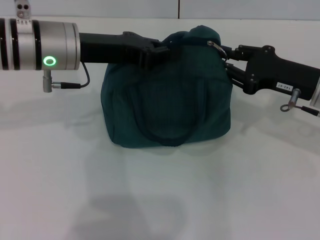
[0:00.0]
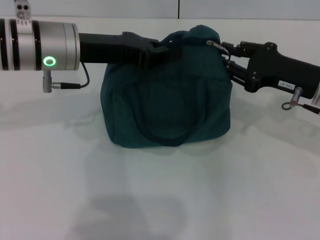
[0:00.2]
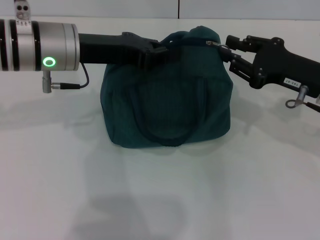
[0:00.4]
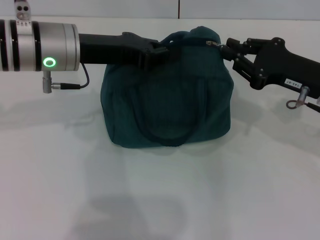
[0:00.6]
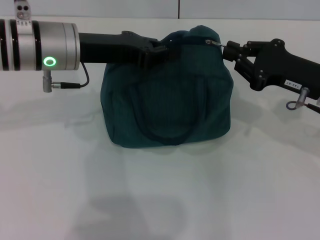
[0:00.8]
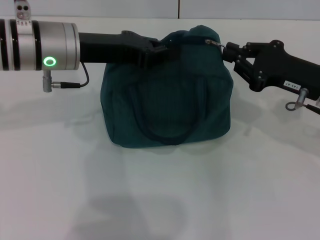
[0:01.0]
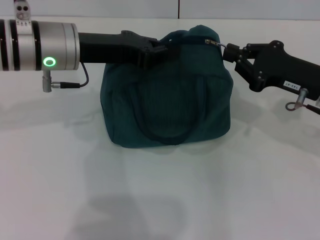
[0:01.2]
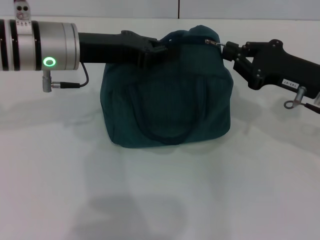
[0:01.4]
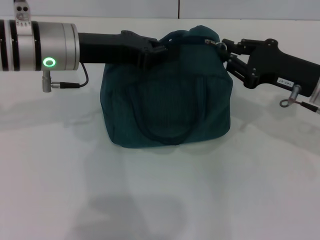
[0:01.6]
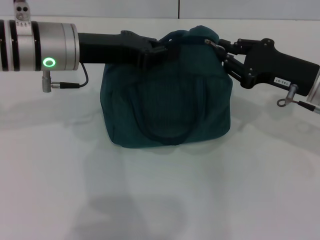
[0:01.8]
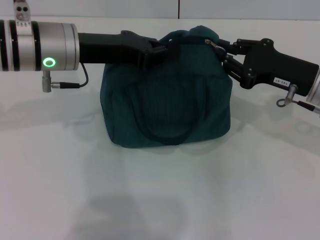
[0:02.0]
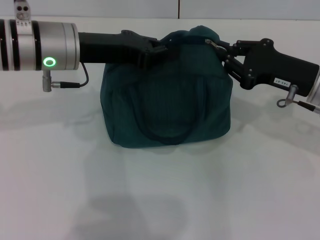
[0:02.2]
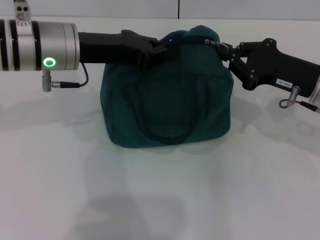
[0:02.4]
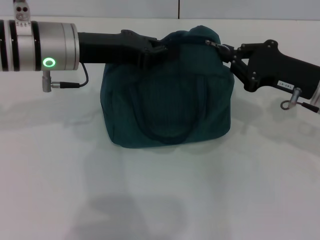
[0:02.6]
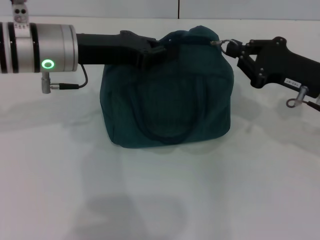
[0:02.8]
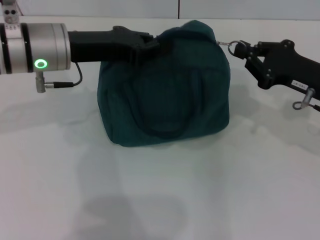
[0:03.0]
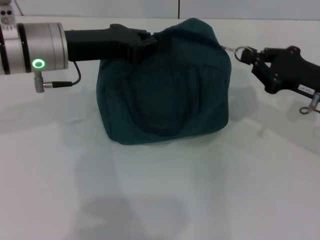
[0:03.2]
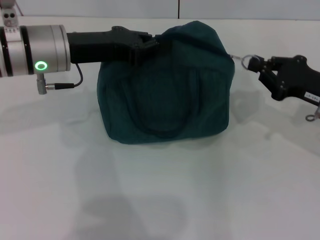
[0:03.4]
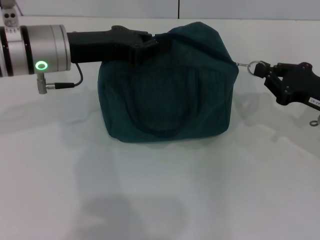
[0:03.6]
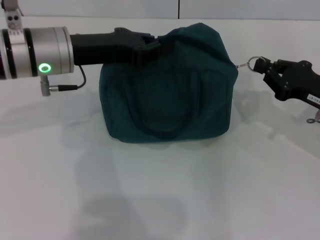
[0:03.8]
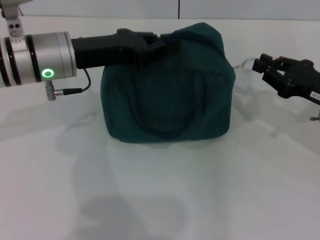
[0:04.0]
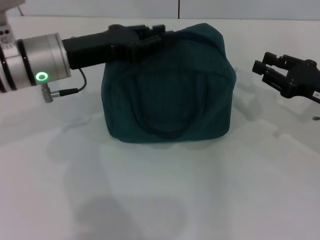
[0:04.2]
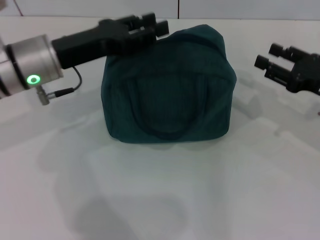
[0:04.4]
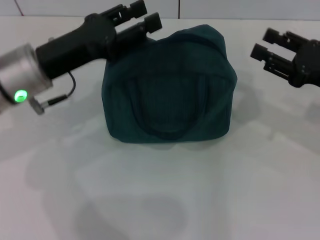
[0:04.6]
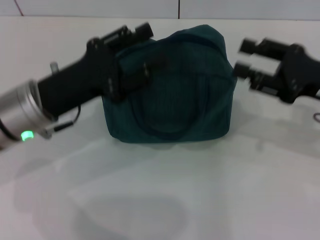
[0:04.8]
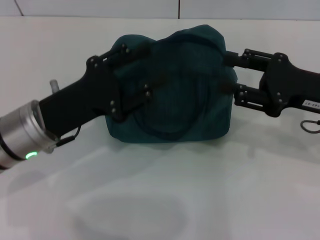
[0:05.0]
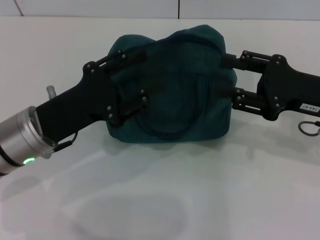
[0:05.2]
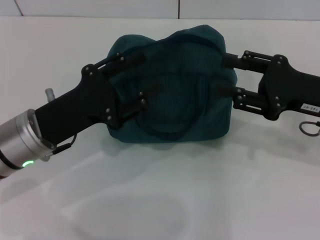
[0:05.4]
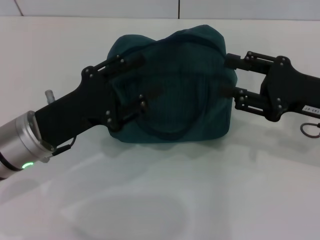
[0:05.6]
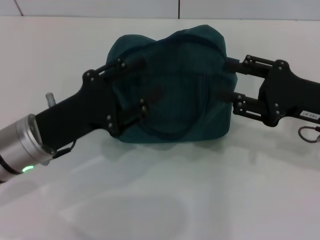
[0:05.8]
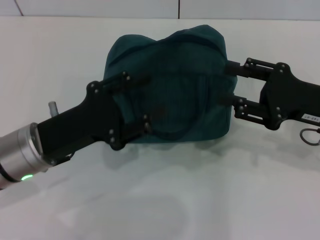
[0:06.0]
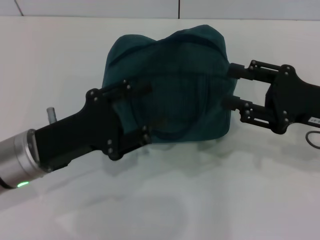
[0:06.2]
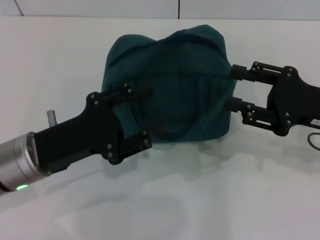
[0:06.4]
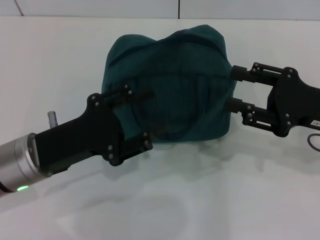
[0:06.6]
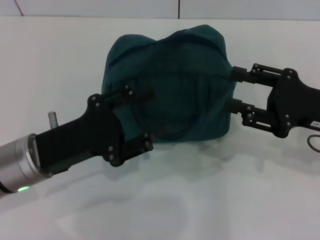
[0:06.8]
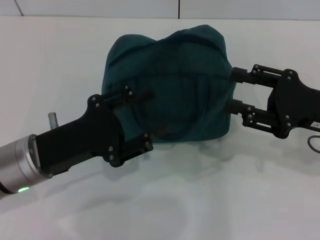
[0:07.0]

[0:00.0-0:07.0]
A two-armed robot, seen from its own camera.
Step, 0:00.0 to 0:04.0: Zip up the lunch bag with your right hand.
0:00.0 to 0:01.4: The grippers move only a little.
0:01.4 to 0:02.8: Neither gripper changes place.
0:02.8 to 0:04.2: The right gripper changes place by approximately 5 cm.
0:04.2 to 0:05.6: The left gripper heads backward and downward, covering approximately 10 cm, and opens; the right gripper changes place by some 5 cm, and opens its fingers.
0:05.6 to 0:07.0: There are only small adjustments of the grippers.

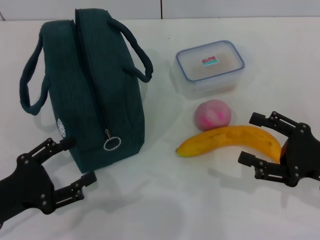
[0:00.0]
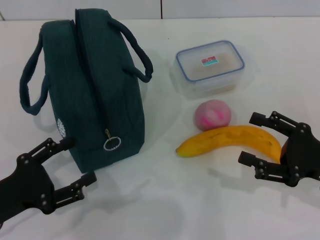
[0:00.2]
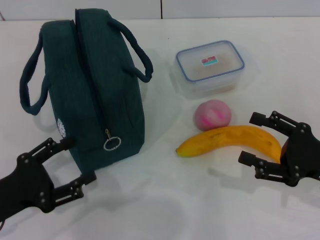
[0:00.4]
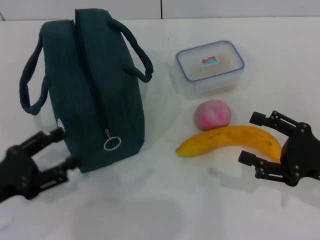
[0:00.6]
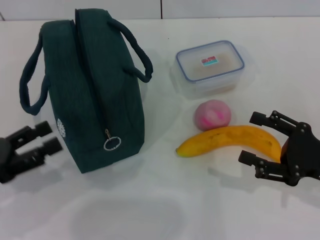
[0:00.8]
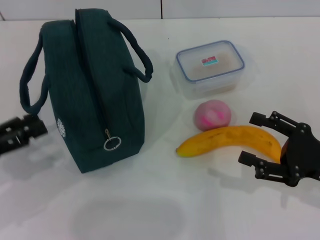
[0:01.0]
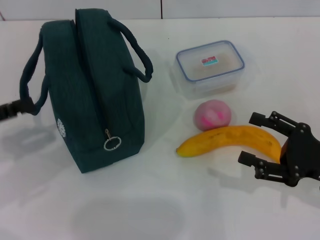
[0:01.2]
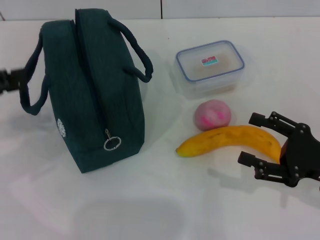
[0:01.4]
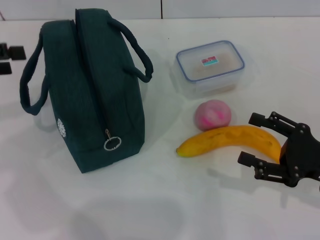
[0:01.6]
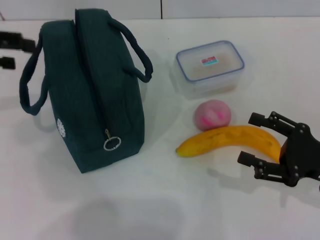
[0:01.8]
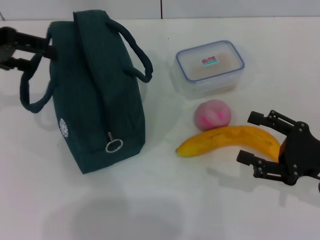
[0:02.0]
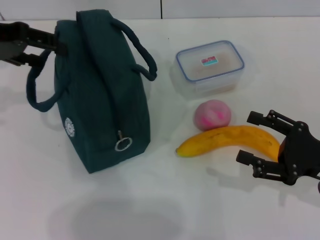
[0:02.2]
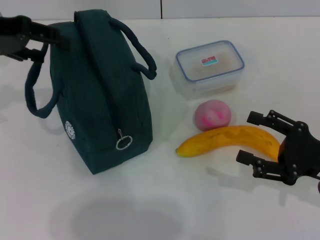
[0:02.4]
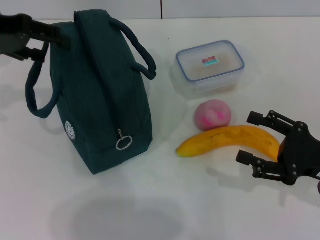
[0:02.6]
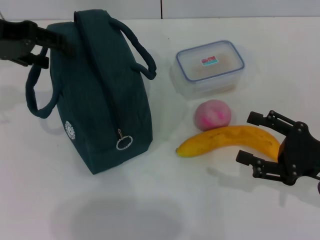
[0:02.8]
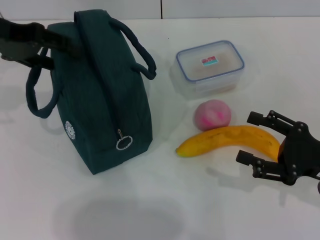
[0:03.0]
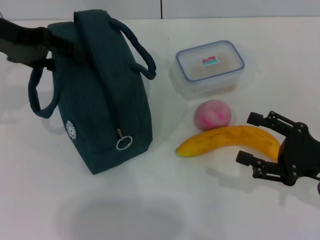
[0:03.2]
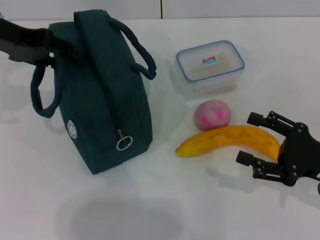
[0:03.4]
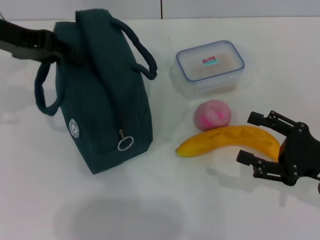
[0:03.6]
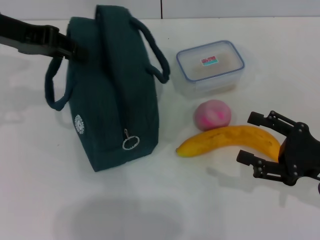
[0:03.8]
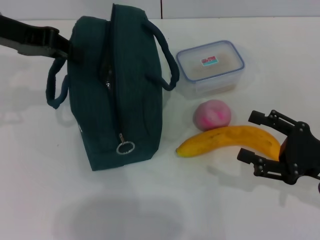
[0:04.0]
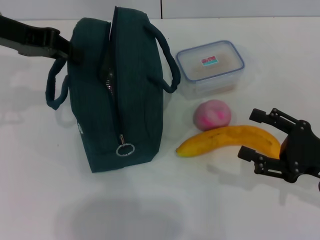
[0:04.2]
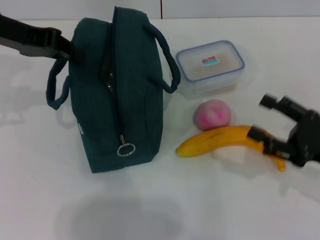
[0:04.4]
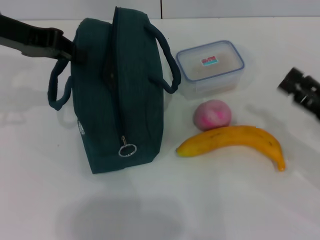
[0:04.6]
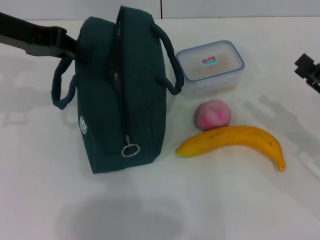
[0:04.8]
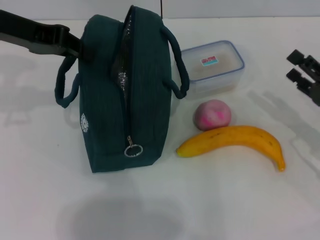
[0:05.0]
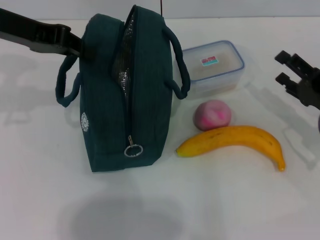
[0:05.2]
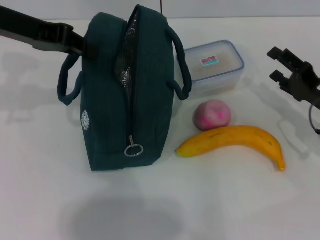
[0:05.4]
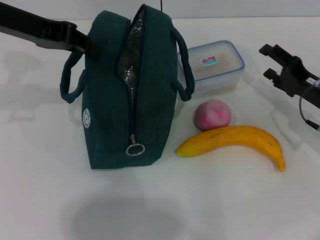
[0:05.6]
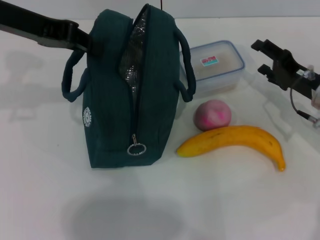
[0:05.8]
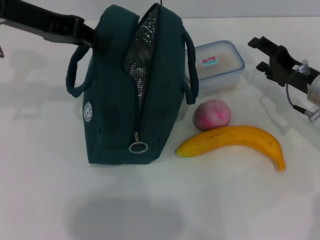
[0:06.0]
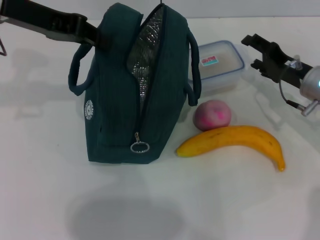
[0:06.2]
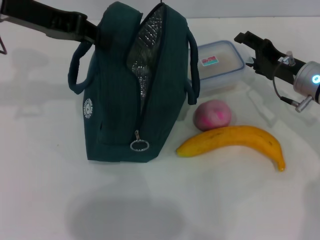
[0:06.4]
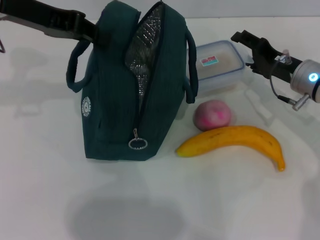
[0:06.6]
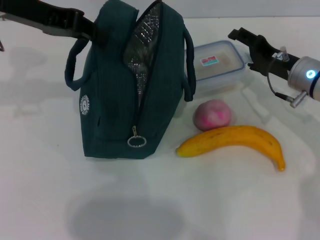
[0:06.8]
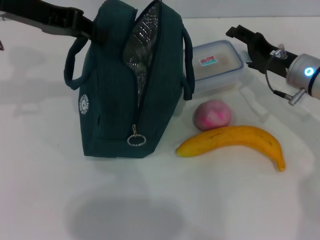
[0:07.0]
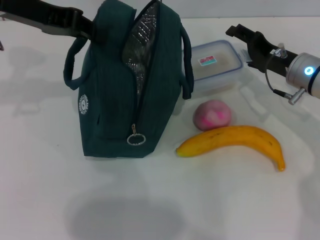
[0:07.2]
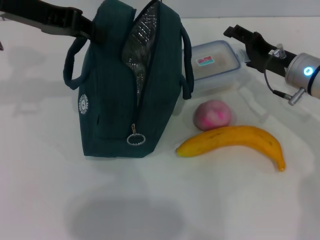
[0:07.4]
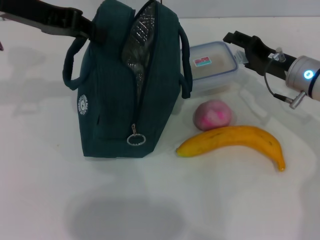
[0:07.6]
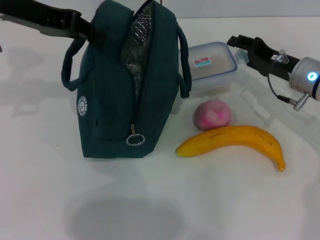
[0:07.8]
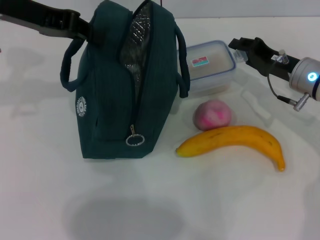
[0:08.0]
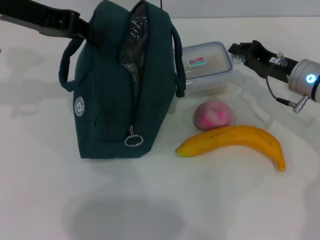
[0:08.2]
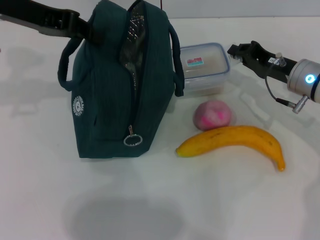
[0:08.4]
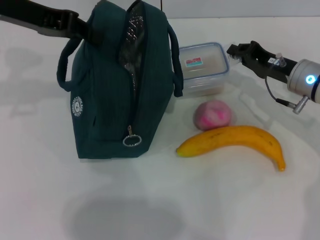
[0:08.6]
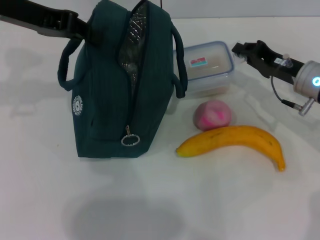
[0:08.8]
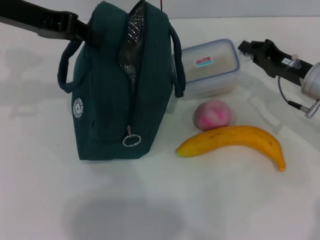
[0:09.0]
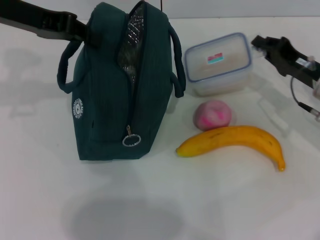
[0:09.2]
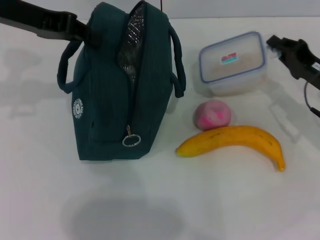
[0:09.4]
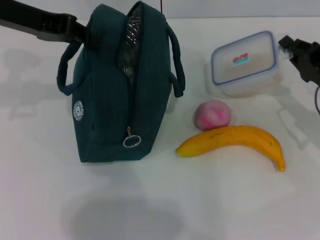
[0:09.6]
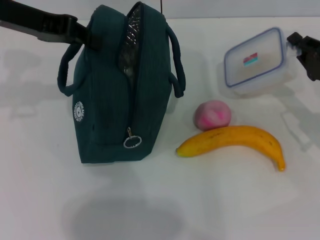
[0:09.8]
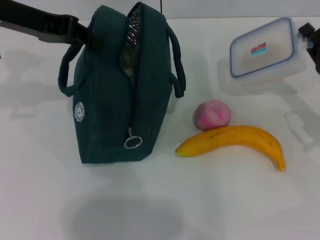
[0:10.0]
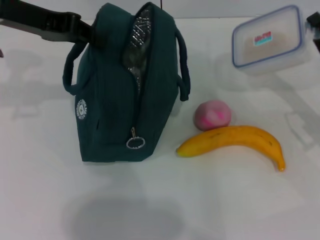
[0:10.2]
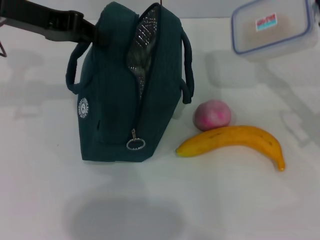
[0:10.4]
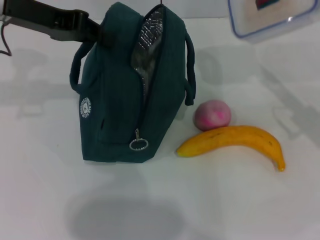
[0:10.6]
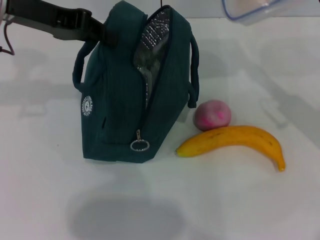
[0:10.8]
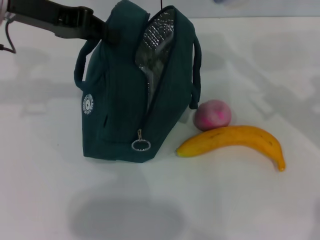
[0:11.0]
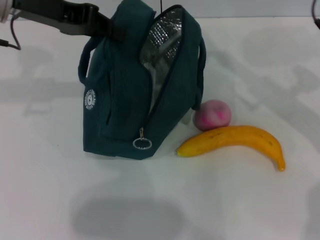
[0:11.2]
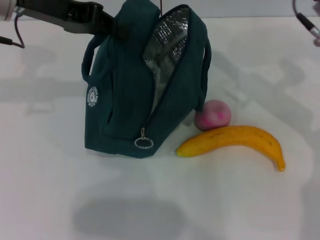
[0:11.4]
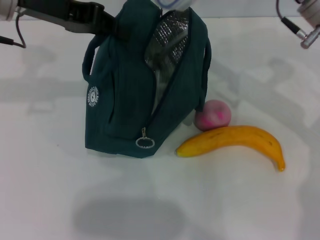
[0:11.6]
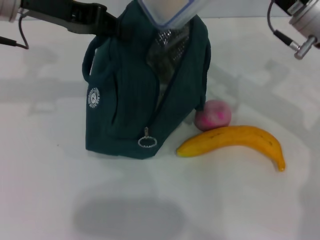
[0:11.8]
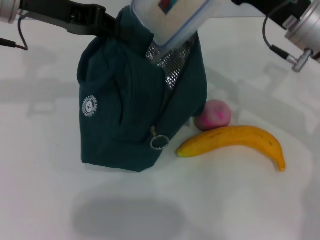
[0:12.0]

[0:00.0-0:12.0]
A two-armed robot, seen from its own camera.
Step, 0:00.0 to 0:04.0: Hold the lunch bag with your left hand.
Step, 0:04.2 to 0:08.8: Pick up the lunch box with your right hand.
0:00.0 to 0:01.6: The left gripper heads upward, forward and to the left, covering some 20 cm.
0:01.6 to 0:03.0: The left gripper is displaced to the right and forward by about 10 cm.
0:03.0 to 0:04.4: The left gripper closes its fingers.
0:04.4 to 0:06.0: The right gripper goes roughly 15 cm forward.
0:06.0 to 0:07.6: The grippers move only a little.
0:07.6 to 0:09.0: The right gripper closes its fingers.
0:09.0 to 0:10.4: The right gripper goes about 10 cm backward and to the right.
0:10.4 to 0:12.0: The right gripper shifts roughly 15 cm to the left, forward and upward.

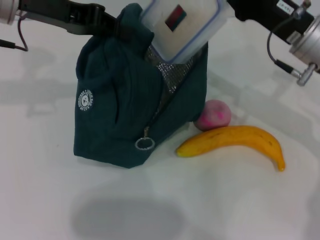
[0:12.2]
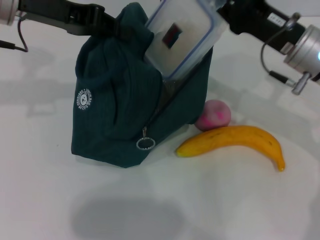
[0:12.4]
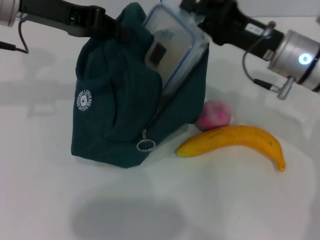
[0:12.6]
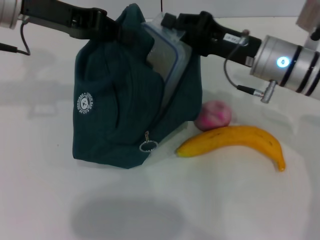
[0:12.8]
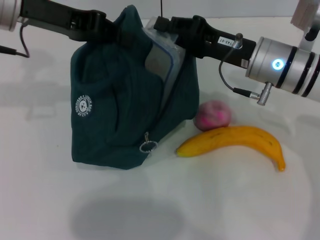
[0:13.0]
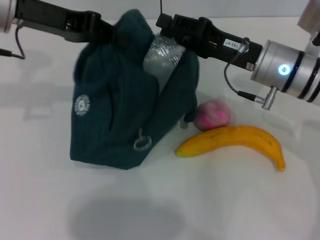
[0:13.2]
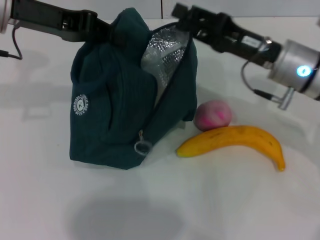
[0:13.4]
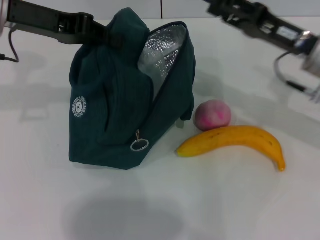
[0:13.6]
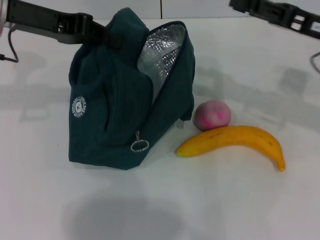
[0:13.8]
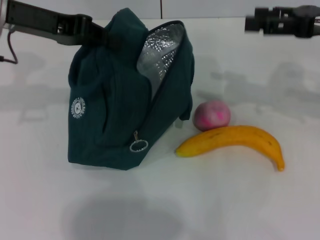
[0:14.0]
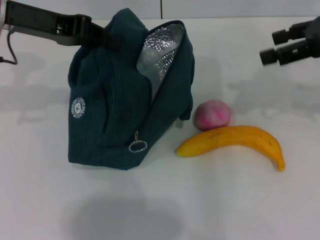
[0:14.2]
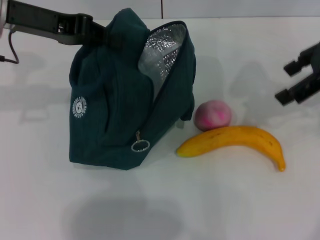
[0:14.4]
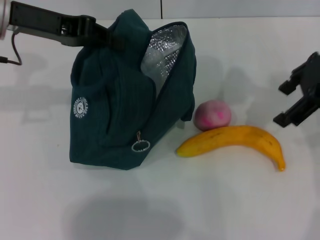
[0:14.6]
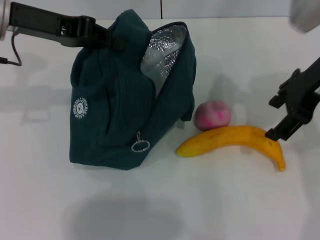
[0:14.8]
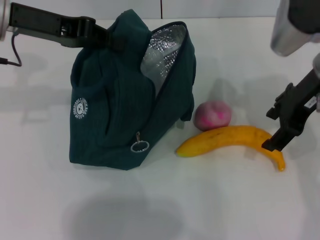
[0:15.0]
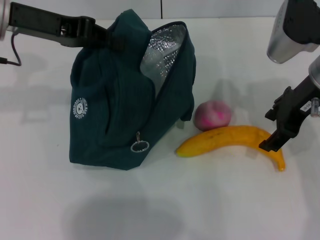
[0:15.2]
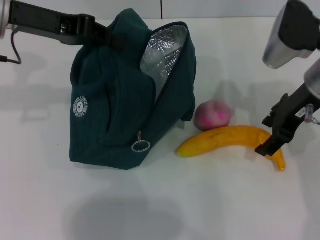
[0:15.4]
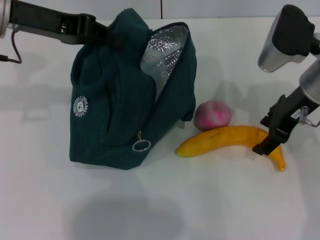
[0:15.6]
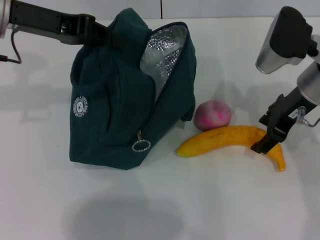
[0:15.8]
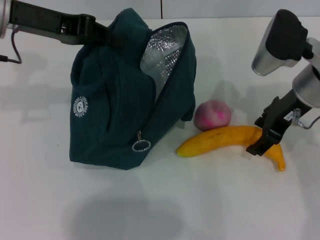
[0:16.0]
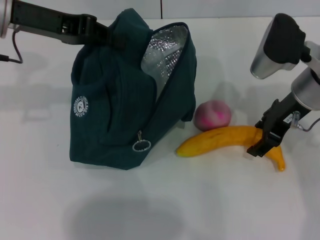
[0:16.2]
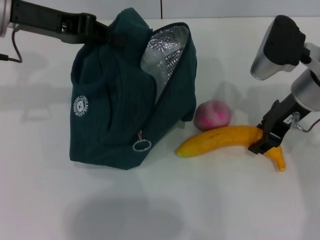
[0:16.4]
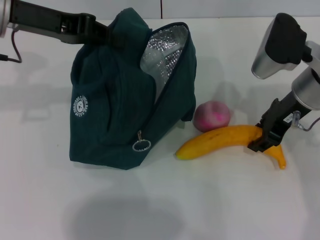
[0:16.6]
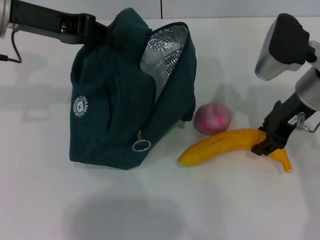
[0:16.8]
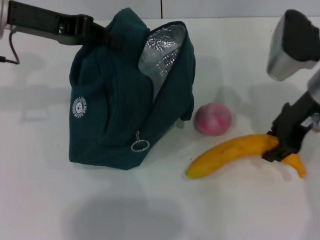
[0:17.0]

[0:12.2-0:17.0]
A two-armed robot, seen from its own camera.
Step, 0:13.4 to 0:16.4: Take the banana with your right hand.
0:12.2 to 0:13.8: The right gripper moves to the right, roughly 5 cm, and opens up.
0:13.8 to 0:15.4: The right gripper shifts some 5 cm to the left, and travels upward and back again, roughly 10 cm each way.
0:15.4 to 0:17.0: The right gripper closes its fingers.
